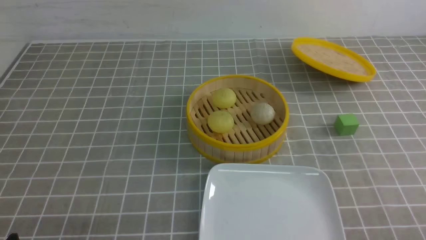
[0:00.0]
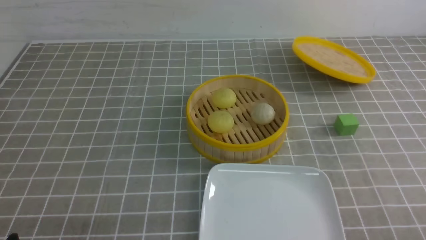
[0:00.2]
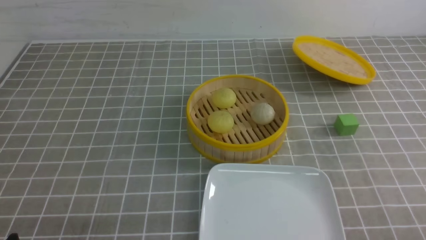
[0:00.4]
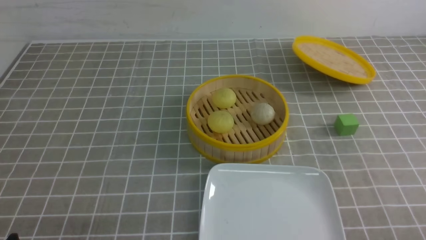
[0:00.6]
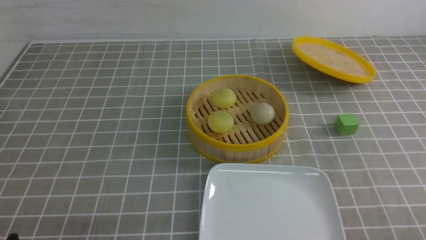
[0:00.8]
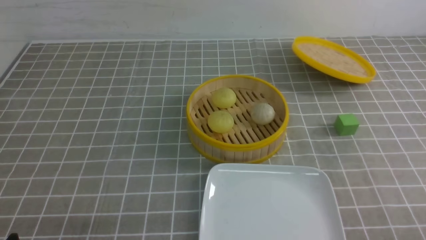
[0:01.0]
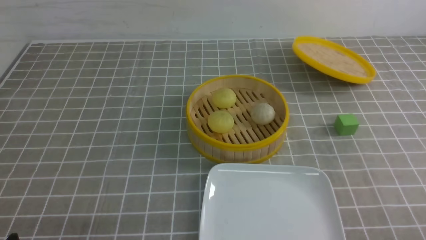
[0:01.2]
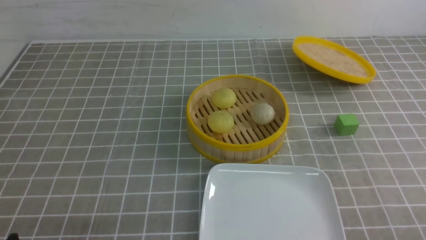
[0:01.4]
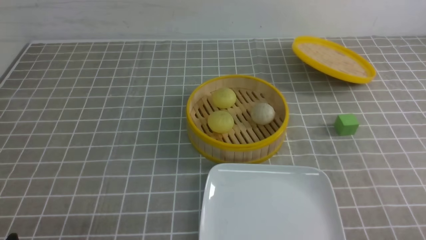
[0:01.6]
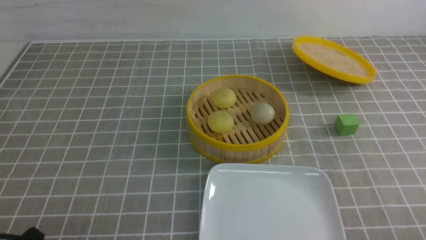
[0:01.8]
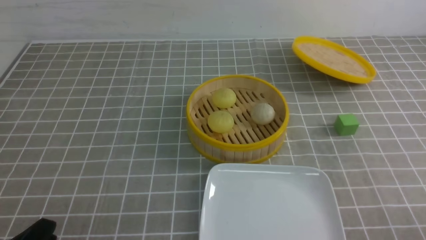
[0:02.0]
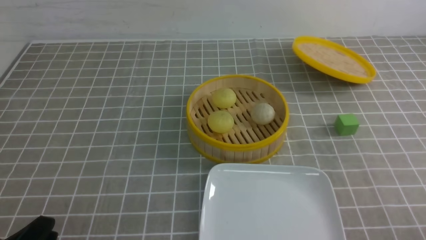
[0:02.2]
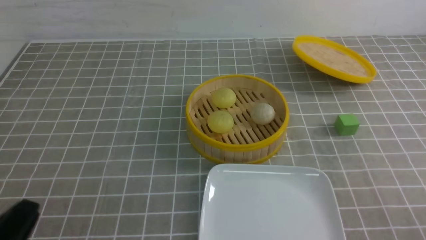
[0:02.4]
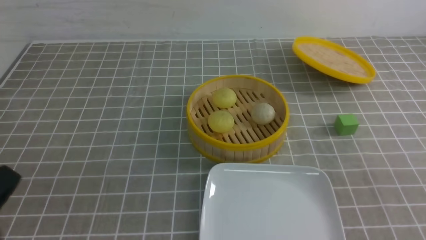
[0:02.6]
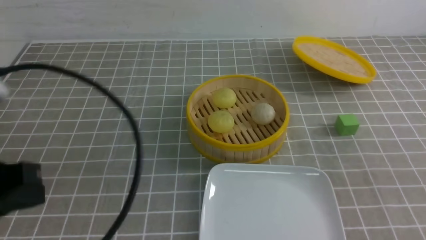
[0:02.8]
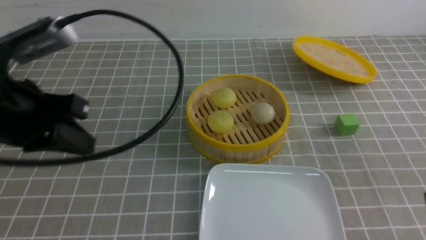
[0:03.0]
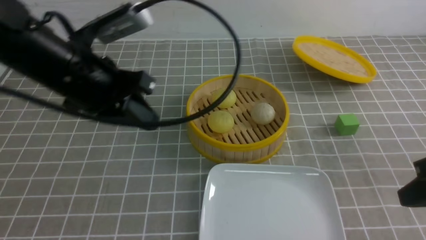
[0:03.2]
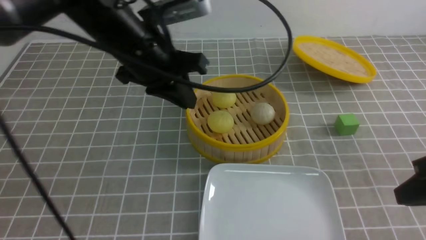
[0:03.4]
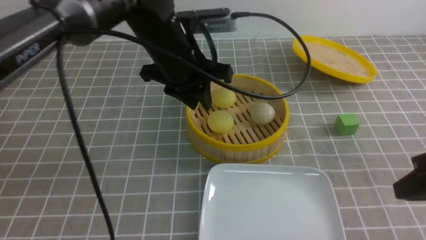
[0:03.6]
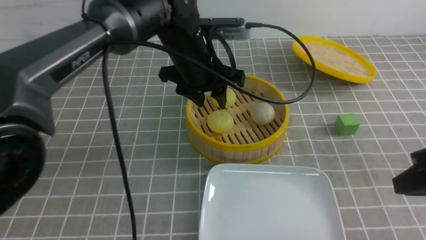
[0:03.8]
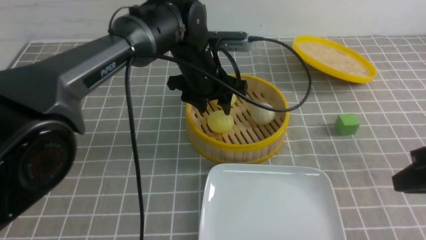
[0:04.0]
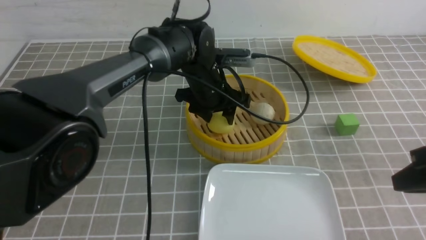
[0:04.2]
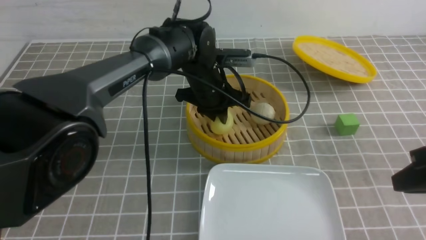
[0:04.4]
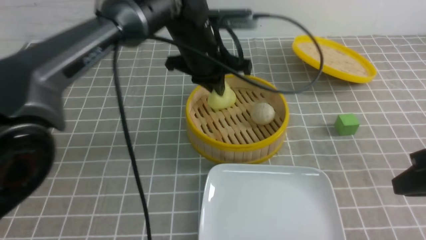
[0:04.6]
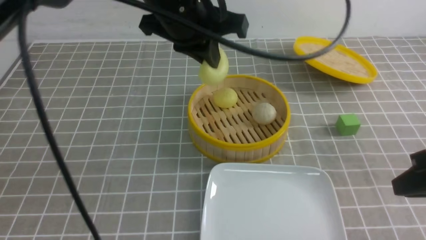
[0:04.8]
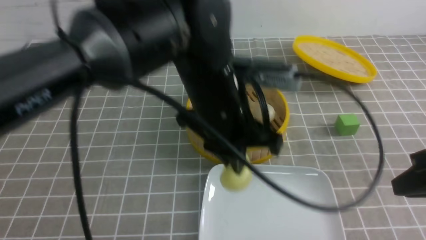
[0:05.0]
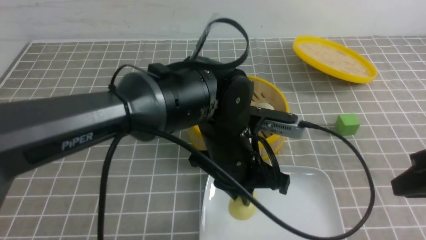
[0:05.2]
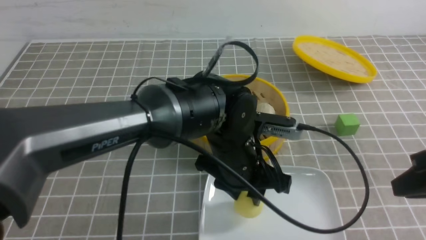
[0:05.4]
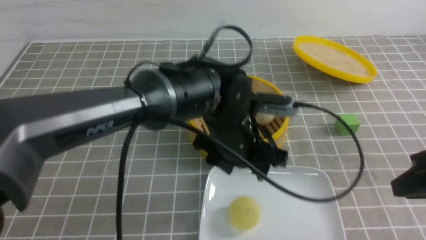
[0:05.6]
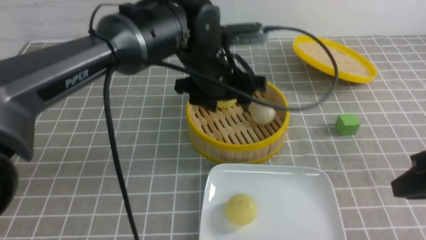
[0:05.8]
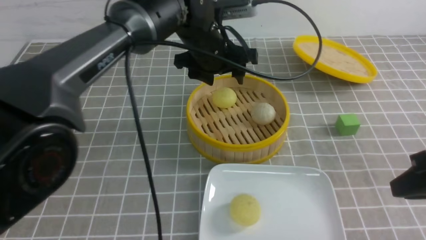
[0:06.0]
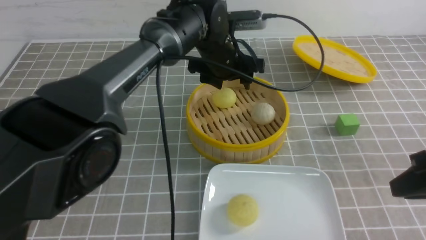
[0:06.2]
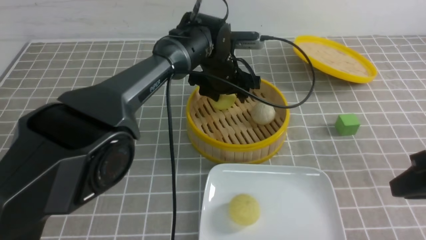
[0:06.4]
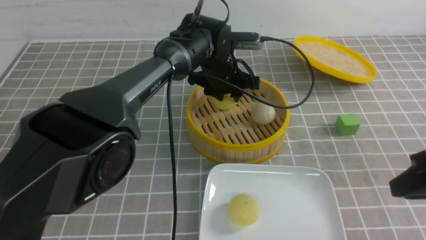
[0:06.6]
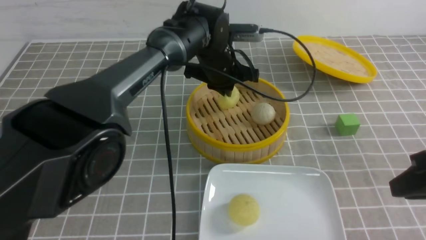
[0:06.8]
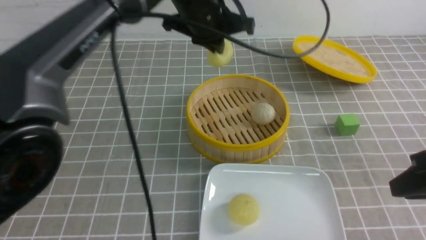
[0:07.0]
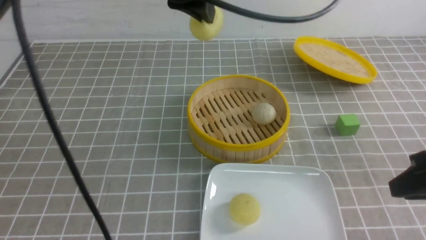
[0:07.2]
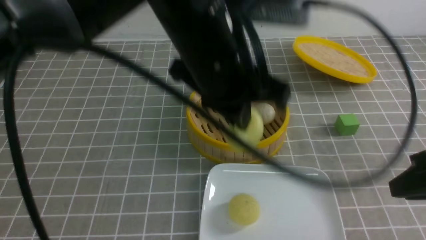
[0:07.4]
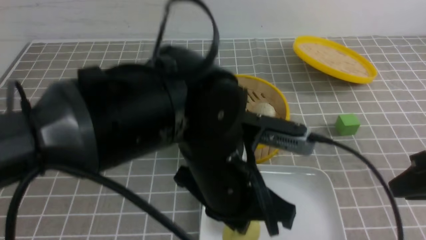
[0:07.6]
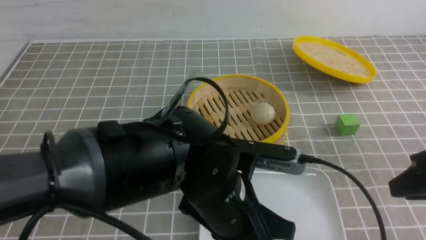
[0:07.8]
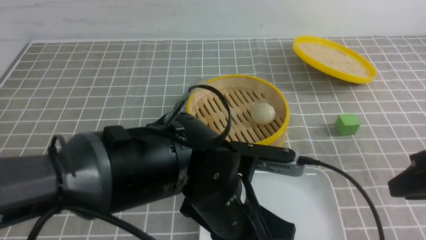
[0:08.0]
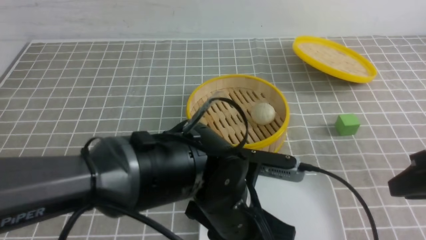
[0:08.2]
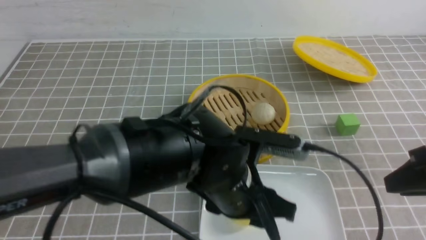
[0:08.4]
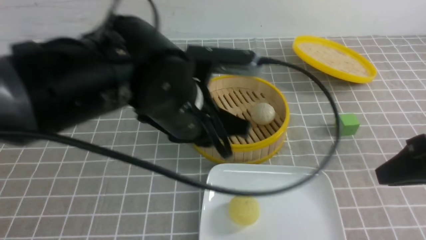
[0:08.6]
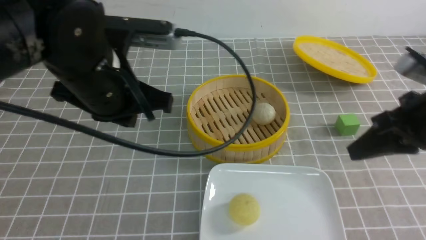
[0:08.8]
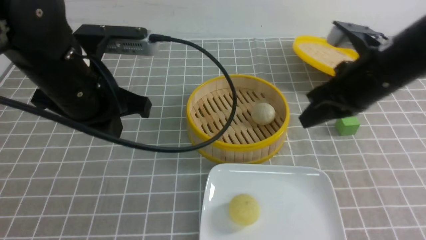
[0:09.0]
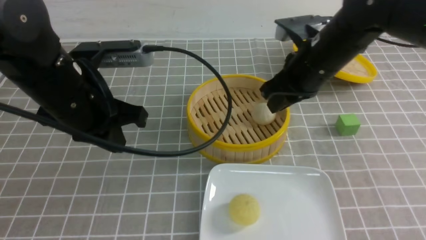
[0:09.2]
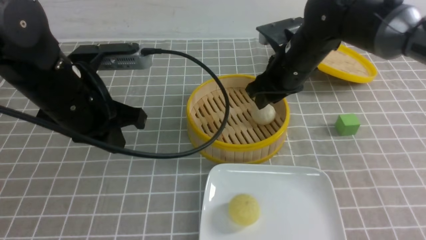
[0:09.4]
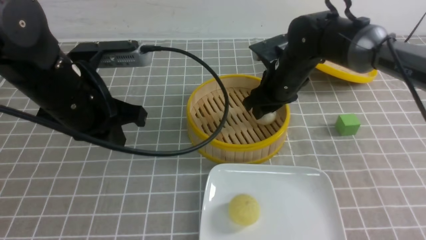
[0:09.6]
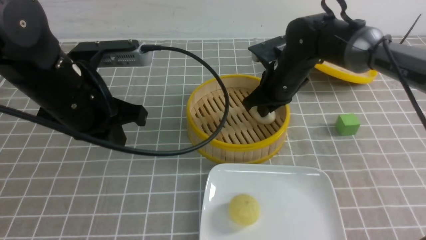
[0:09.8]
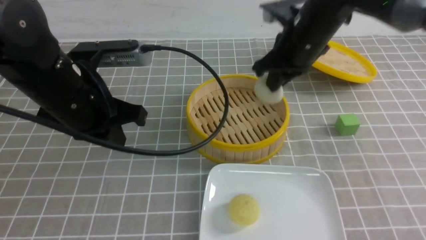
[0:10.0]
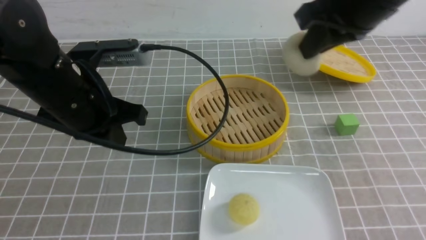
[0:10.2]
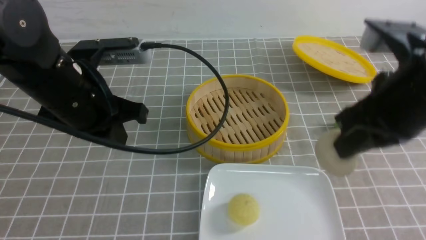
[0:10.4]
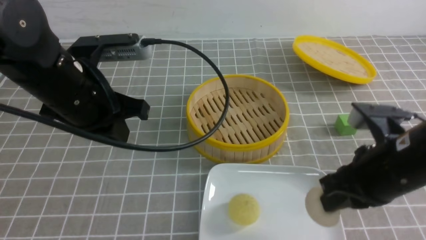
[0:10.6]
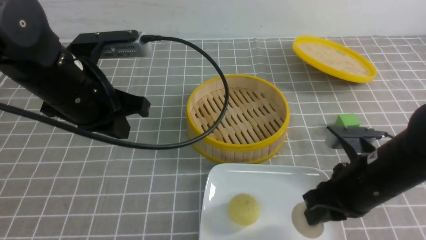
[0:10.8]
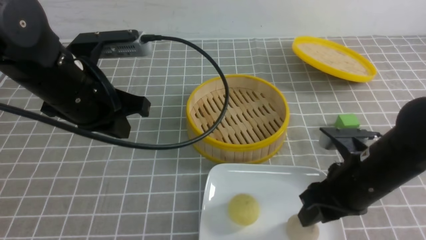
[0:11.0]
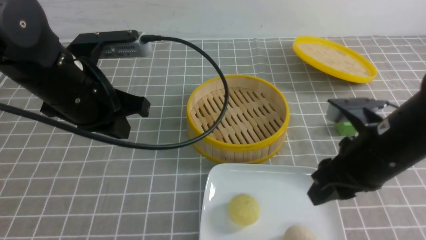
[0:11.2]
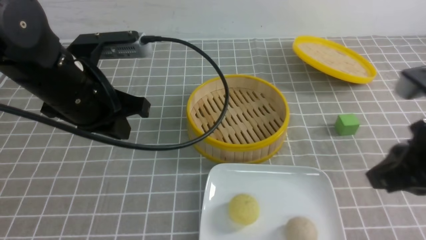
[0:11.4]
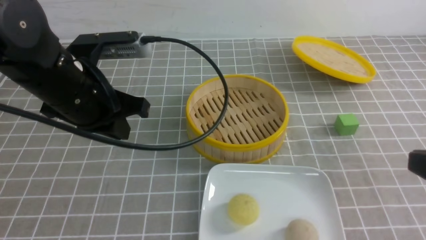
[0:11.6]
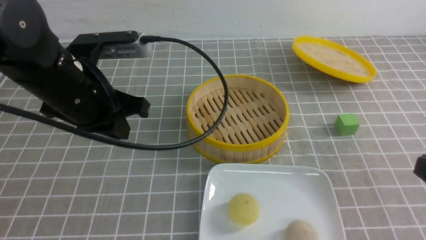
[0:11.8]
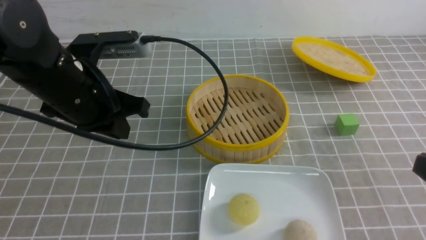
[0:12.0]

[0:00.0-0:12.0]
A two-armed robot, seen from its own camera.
Step, 0:00.0 to 0:04.4: use the left arm to grab the steamed stuffed bun that is closest to it.
Step, 0:04.6 to 0:05.4: use the left arm to put the steamed stuffed bun into the plate.
Step, 0:05.6 to 0:06.6: use the left arm to grab the steamed stuffed bun that is closest to it.
Step, 0:07.0 to 0:08.2: use the left arm to put the steamed stuffed bun into the plate.
Step, 0:08.4 to 0:09.8: use the right arm to grab the steamed stuffed bun that is closest to it.
Step, 0:10.0 to 0:11.0: use the right arm to put the steamed stuffed bun into the plate.
0:01.6 to 0:03.0: The two grippers go approximately 20 cm upward and forward. The right gripper closes up. Meanwhile the left gripper closes up.
0:03.0 to 0:04.4: The right gripper opens up. The left gripper heads to the right, forward and downward, covering some 30 cm, and opens, then closes once more.
0:04.4 to 0:06.0: The left gripper travels backward and back again, approximately 15 cm each way, and opens its fingers.
0:06.0 to 0:07.6: The left gripper travels backward by some 20 cm, and closes.
0:07.6 to 0:09.0: The right gripper goes roughly 15 cm forward and to the left, and closes up, while the left gripper is displaced to the left and forward by approximately 15 cm, and opens and closes again.
0:09.0 to 0:10.4: The right gripper shifts some 5 cm backward, and opens and closes again.
0:10.4 to 0:12.0: The right gripper goes some 20 cm backward and to the right, and opens and closes again.

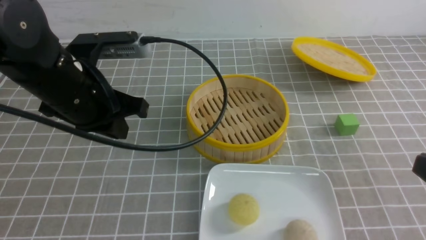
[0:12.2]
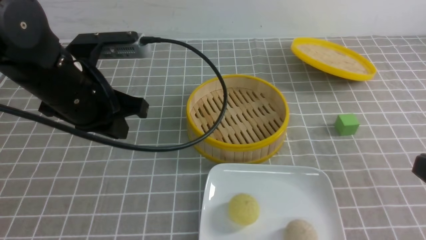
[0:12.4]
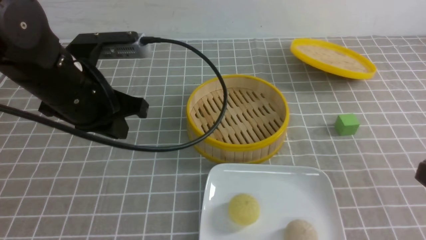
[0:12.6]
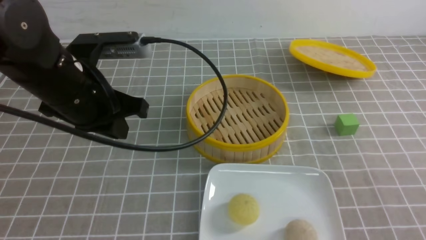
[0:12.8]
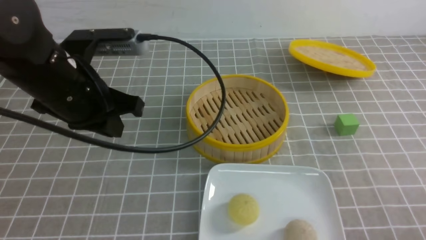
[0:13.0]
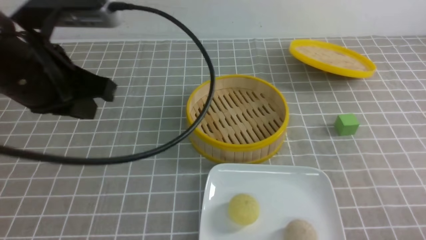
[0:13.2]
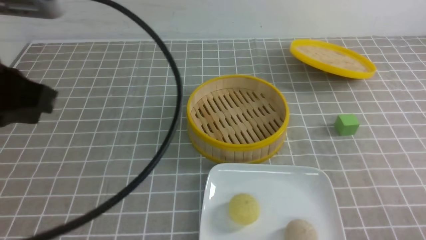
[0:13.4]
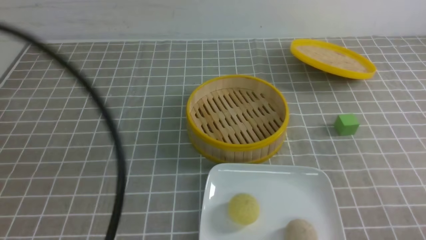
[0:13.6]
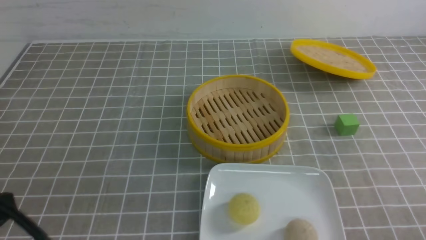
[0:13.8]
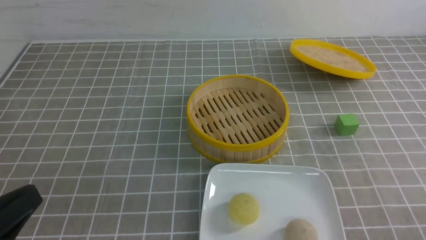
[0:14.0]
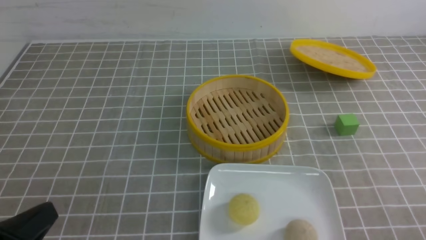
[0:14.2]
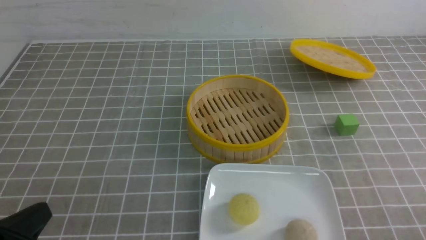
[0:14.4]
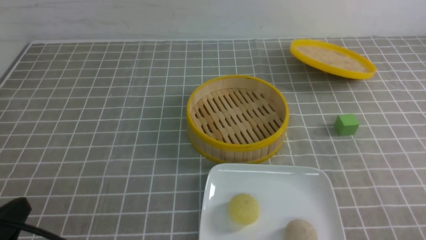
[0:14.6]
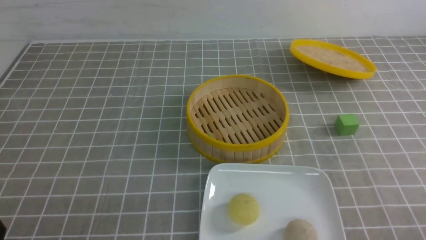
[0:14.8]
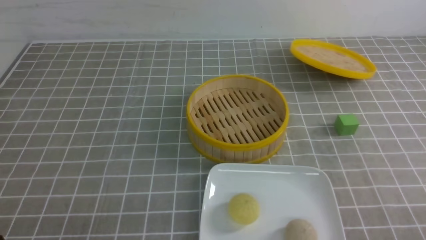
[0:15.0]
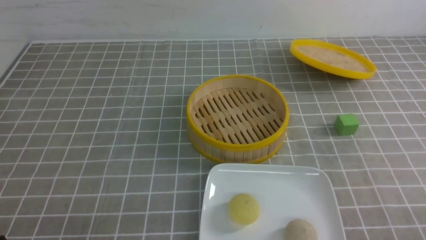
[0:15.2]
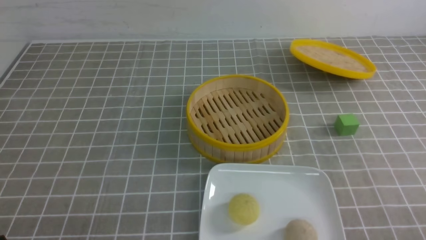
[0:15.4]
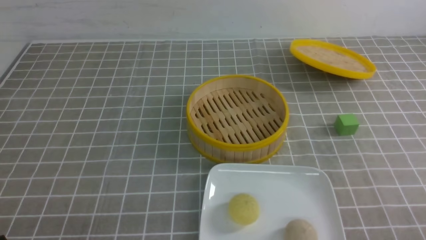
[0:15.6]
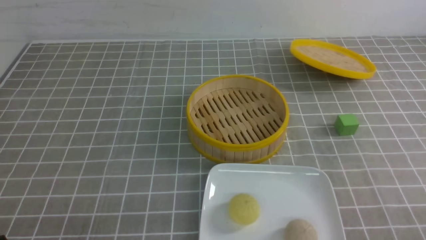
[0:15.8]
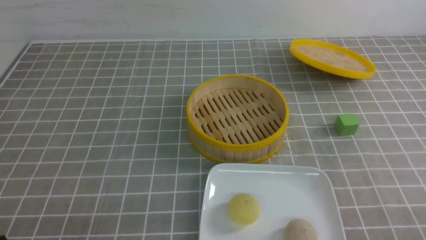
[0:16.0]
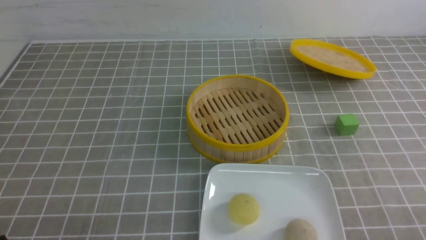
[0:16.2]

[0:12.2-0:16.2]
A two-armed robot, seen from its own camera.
0:12.2 to 0:13.6: The left gripper is displaced backward and upward by some 20 cm, while the right gripper travels downward by approximately 10 cm.
0:13.6 to 0:14.8: The left gripper goes approximately 20 cm downward.
